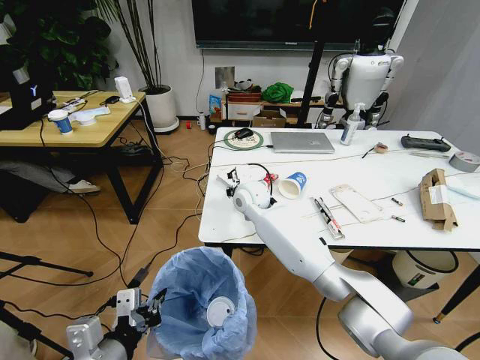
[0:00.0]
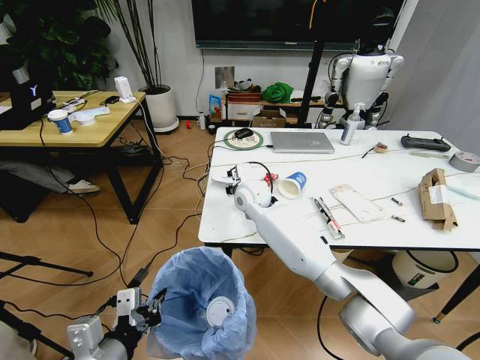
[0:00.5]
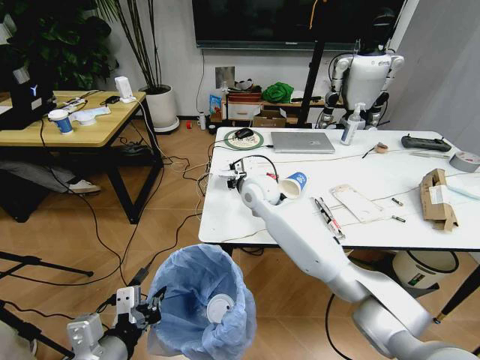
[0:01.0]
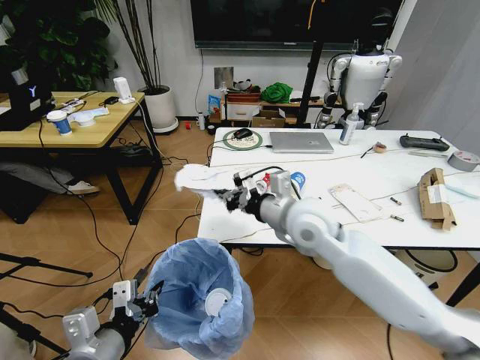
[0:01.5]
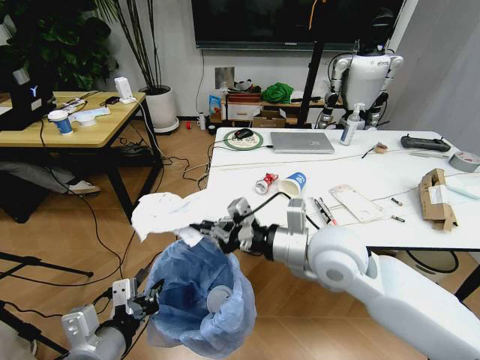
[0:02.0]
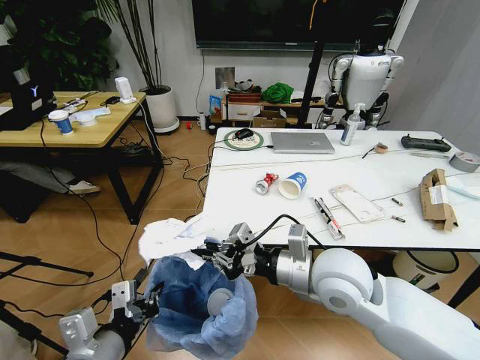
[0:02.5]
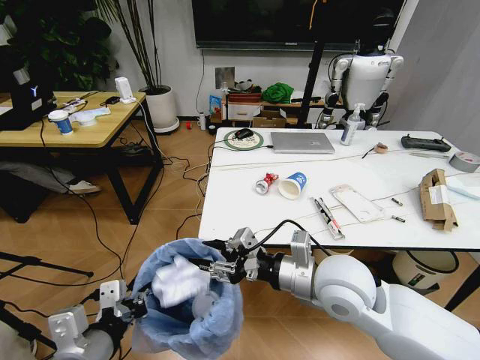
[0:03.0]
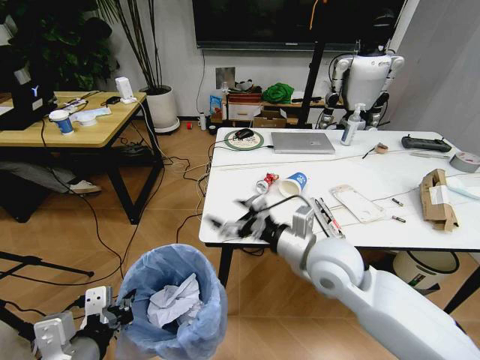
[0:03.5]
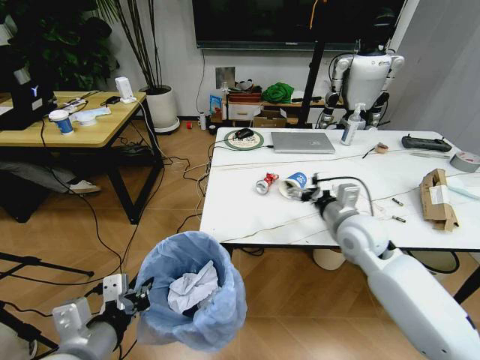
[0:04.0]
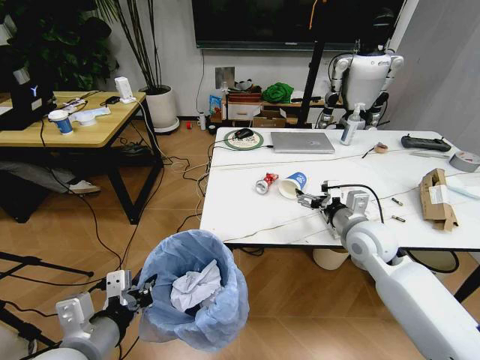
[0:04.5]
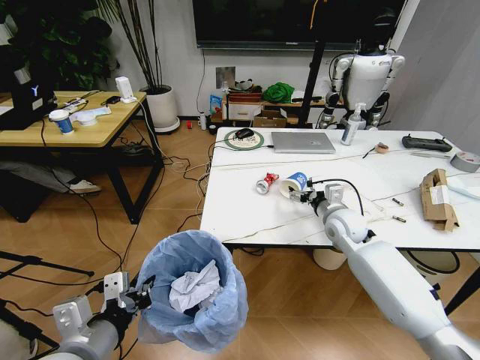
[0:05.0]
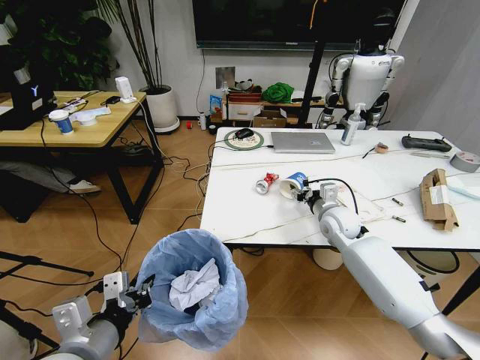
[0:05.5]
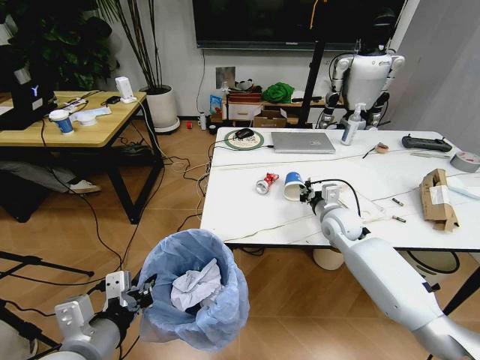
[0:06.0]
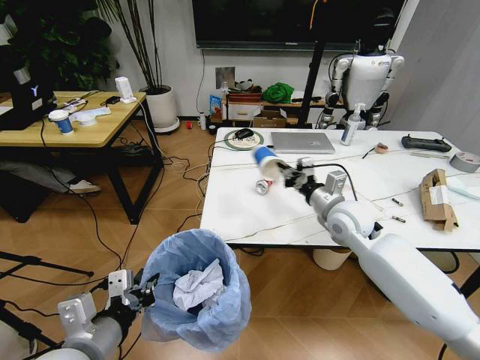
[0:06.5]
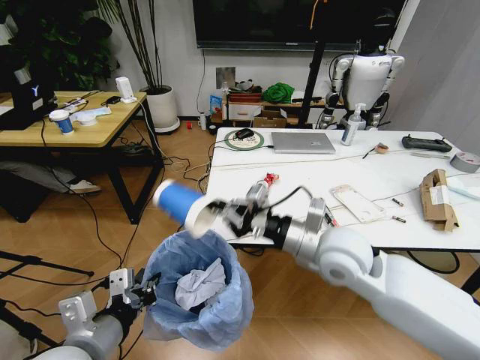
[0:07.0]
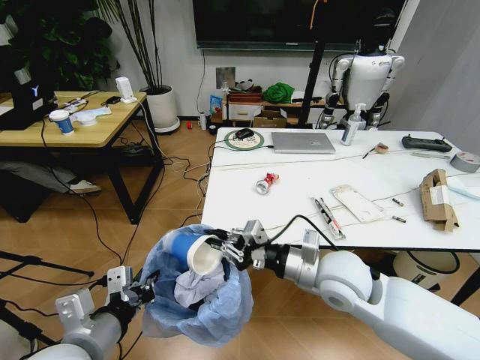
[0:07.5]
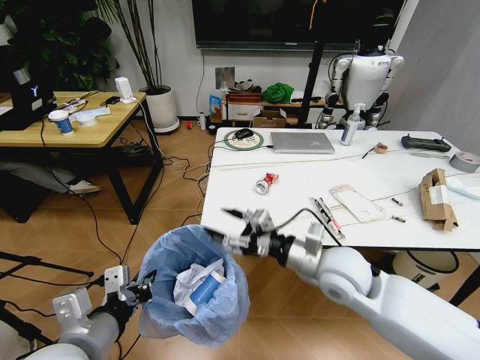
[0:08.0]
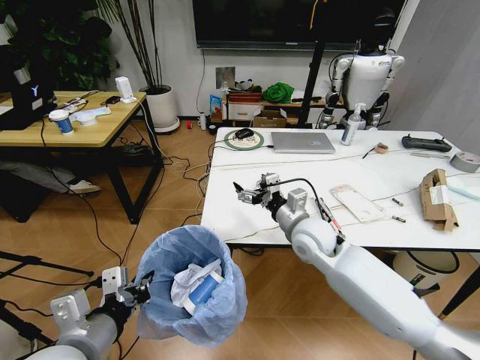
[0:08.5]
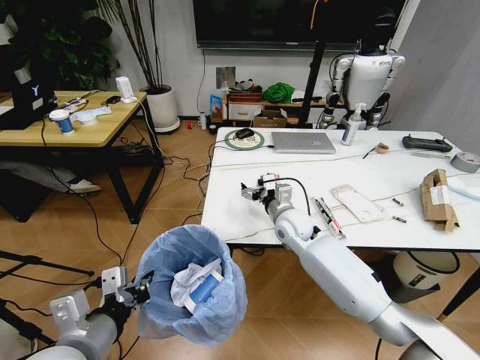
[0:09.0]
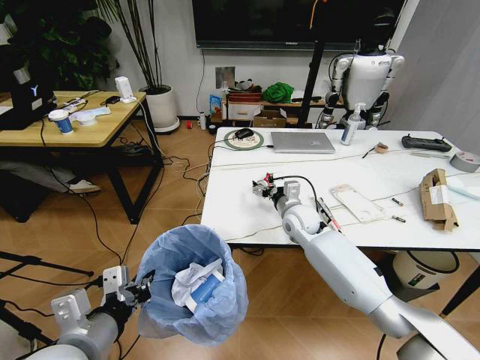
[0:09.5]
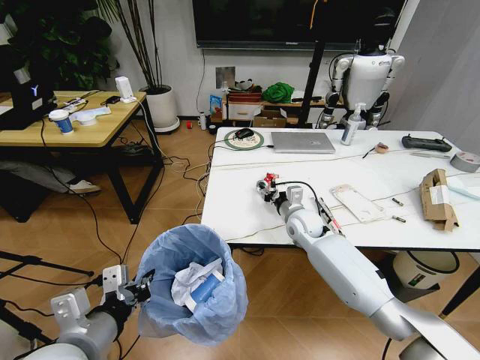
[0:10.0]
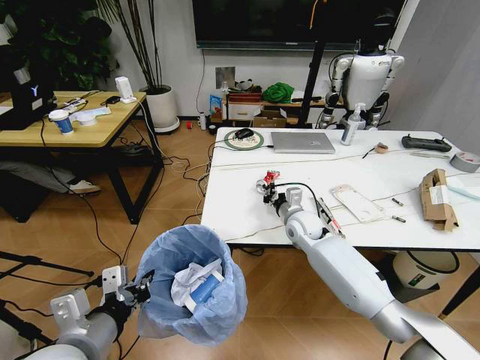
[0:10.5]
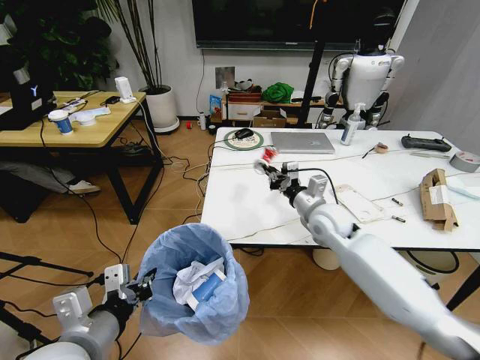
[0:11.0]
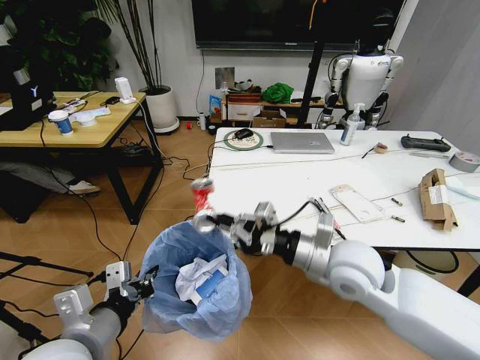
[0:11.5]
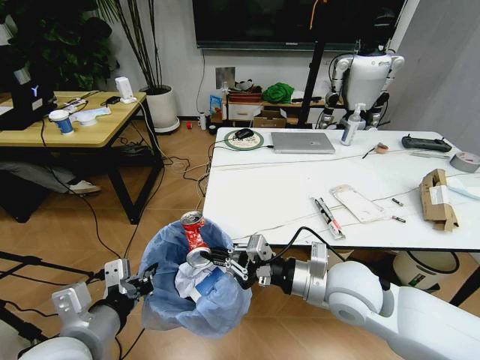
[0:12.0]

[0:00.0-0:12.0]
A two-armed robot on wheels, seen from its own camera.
Task of the whole recording: Pick up the trash bin and place the trash from the table into it.
0:00.0 to 0:02.0: The right gripper heads backward, to the right and upward, covering about 30 cm.
0:02.0 to 0:04.0: The right gripper travels to the right, forward and downward by roughly 15 cm, and opens.
0:04.0 to 0:06.0: The right gripper shifts some 10 cm forward and downward, and closes up.
0:06.0 to 0:08.0: The right gripper goes approximately 20 cm backward, to the left and upward, and opens.
0:08.0 to 0:10.0: The right gripper goes roughly 25 cm forward and downward.
0:10.0 to 0:12.0: The right gripper goes roughly 25 cm backward and upward, and closes its fingers.

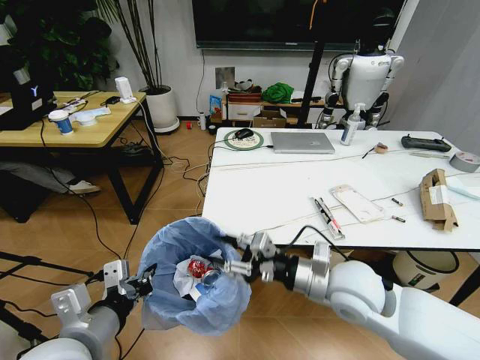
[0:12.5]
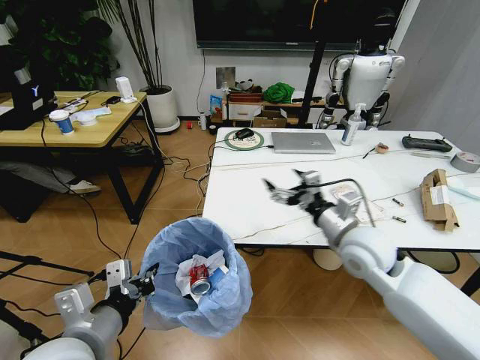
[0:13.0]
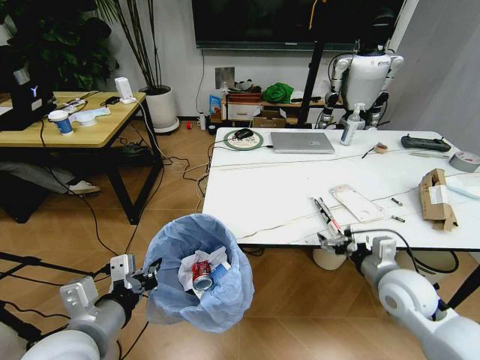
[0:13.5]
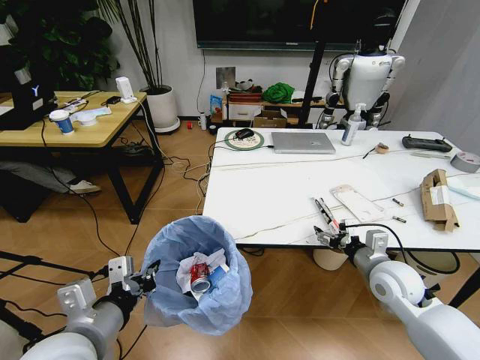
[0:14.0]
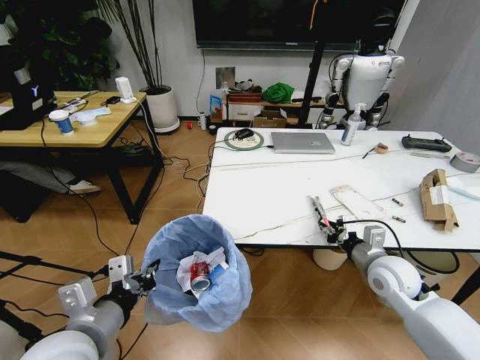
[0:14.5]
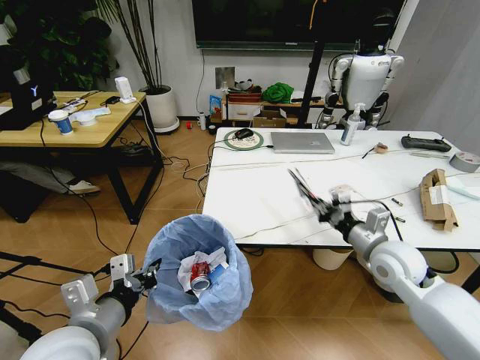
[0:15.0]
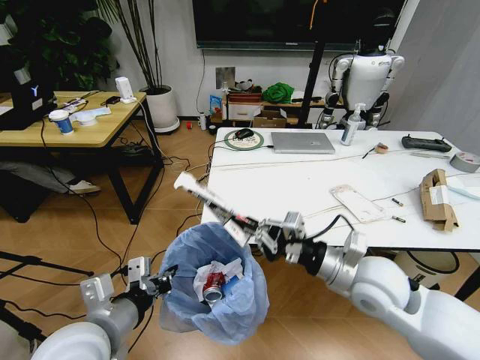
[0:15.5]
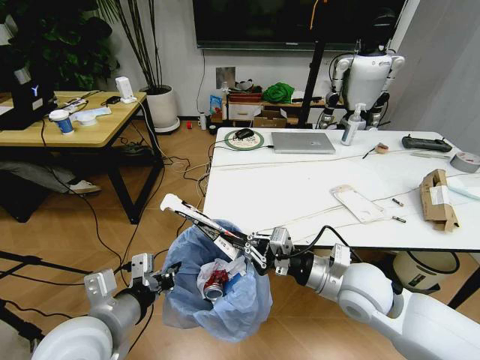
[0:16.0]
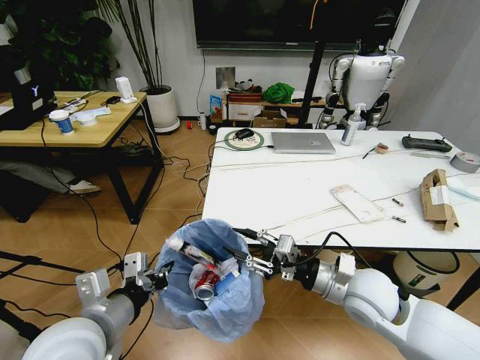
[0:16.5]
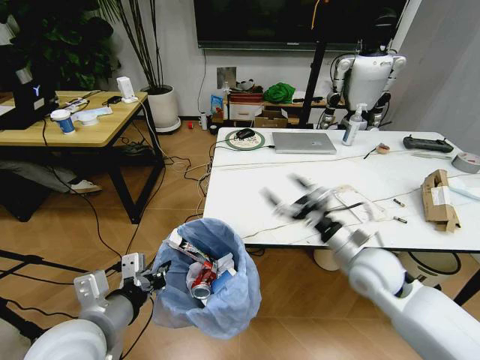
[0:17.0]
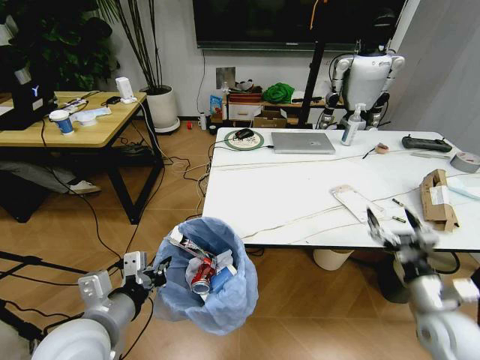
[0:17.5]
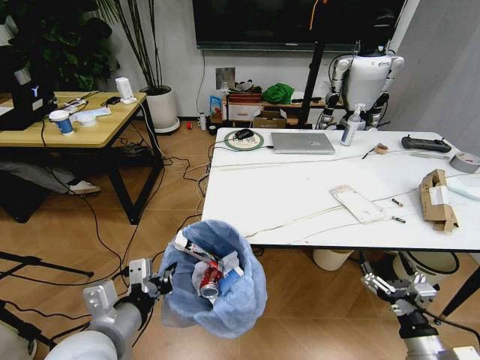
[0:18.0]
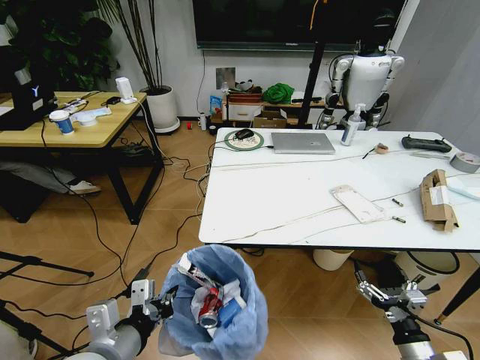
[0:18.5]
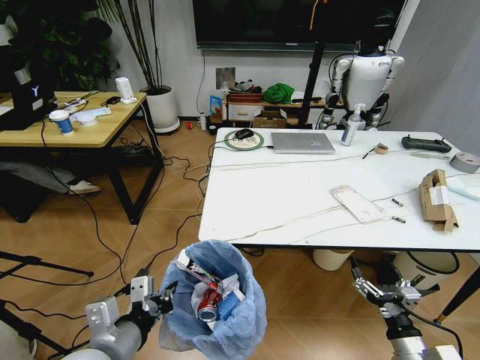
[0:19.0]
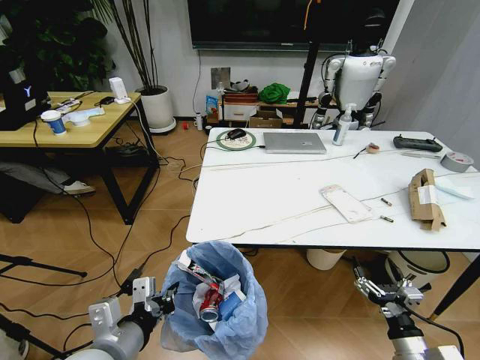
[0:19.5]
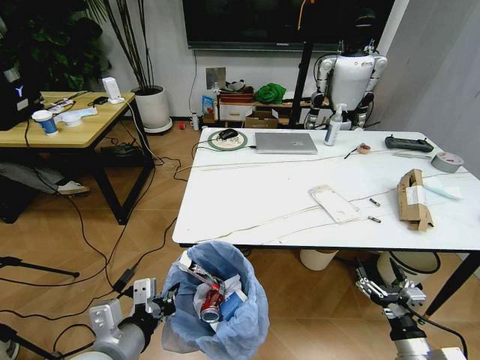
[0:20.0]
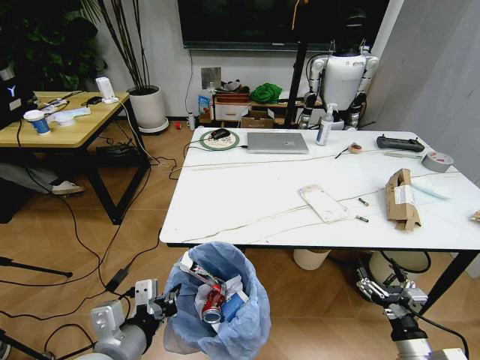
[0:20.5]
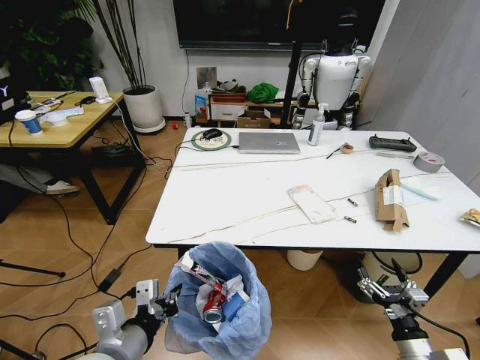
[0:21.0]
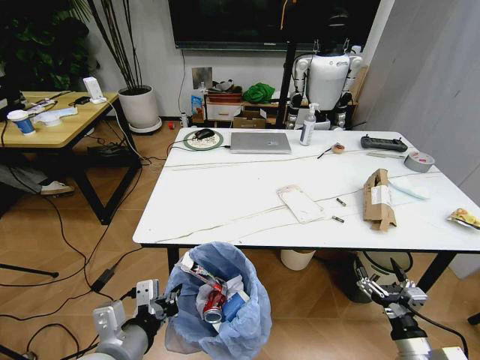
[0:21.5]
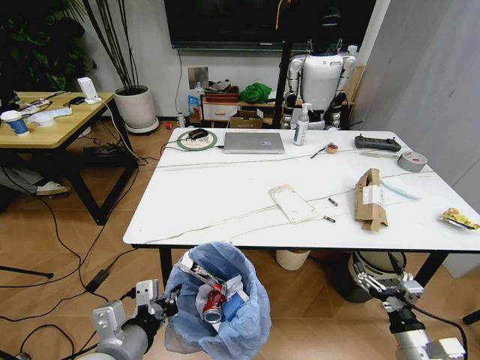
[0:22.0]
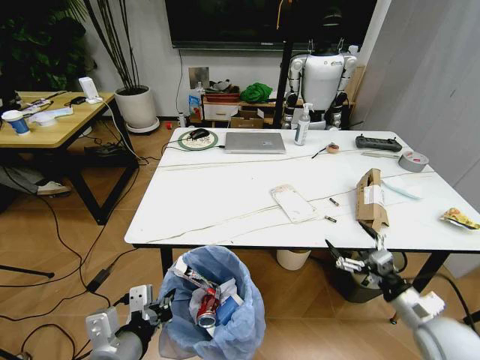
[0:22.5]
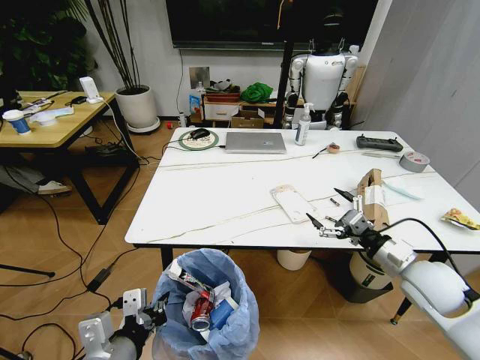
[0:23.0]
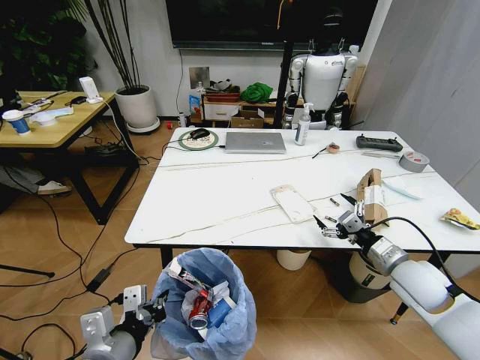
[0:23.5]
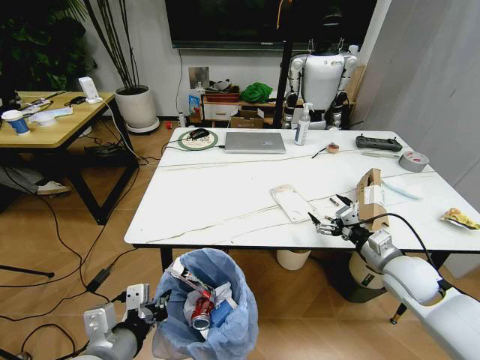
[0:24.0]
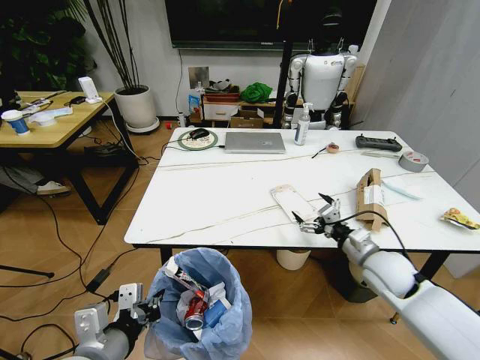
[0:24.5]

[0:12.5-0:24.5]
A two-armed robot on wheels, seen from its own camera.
Task of the whole recording: Pick up the trash bin and place the trash from the table into it.
0:12.5 to 0:14.5: The right gripper heads to the right, downward and forward, covering about 15 cm, and opens and closes again.
0:14.5 to 0:16.5: The right gripper shifts some 10 cm to the left and backward.
0:16.5 to 0:18.5: The right gripper travels backward, downward and to the right by some 25 cm, and opens its fingers. Meanwhile the left gripper changes place by some 5 cm.
0:20.5 to 0:22.5: The right gripper moves forward and upward, approximately 10 cm.
0:22.5 to 0:24.5: The right gripper is displaced forward and to the left by roughly 15 cm.

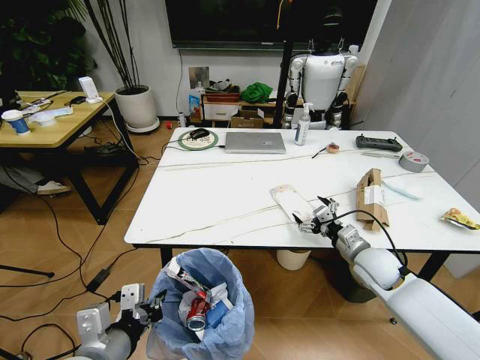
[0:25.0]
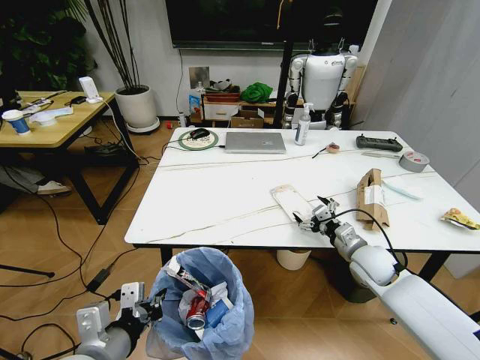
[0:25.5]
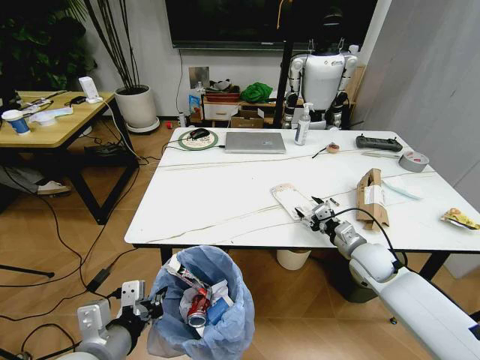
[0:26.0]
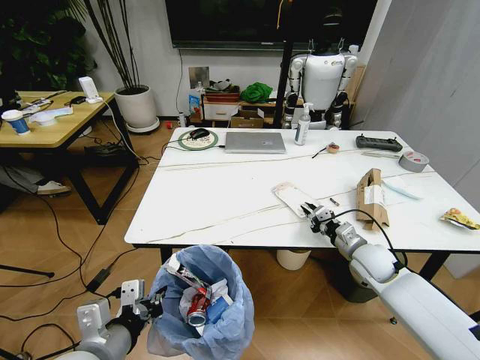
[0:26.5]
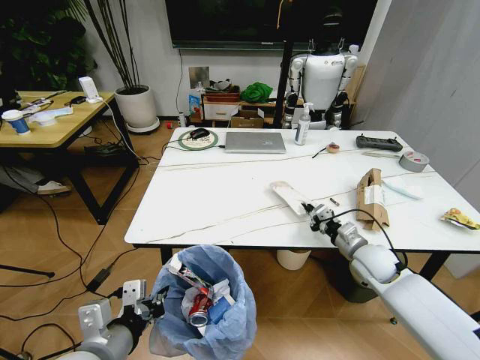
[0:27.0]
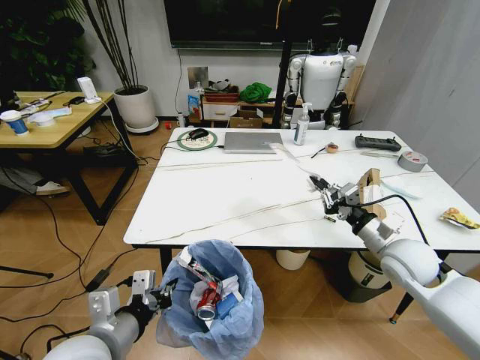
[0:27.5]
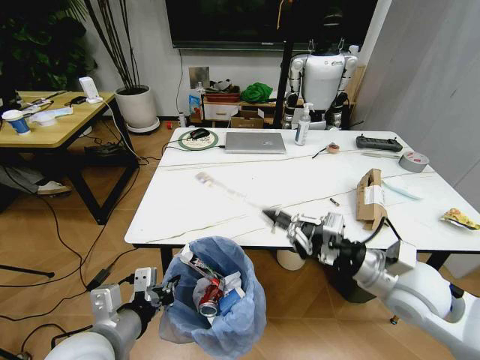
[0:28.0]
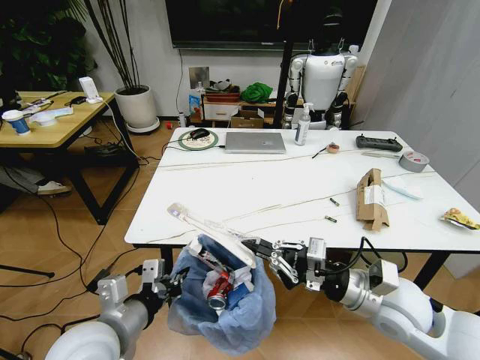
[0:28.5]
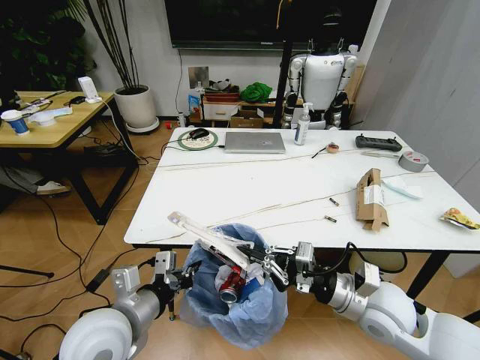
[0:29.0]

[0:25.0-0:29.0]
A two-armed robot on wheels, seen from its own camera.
Task of the whole recording: Pick up the trash bin and place the trash from the table into it.
0:25.0 to 0:27.0: The right gripper closes.
0:27.0 to 0:29.0: The right gripper is displaced backward, upward and to the left by about 20 cm, while the left gripper heads forward, covering approximately 5 cm.
